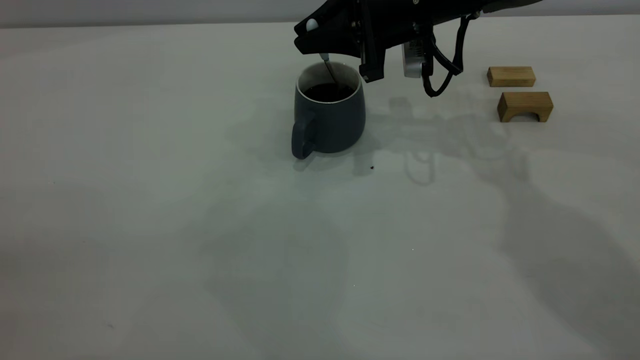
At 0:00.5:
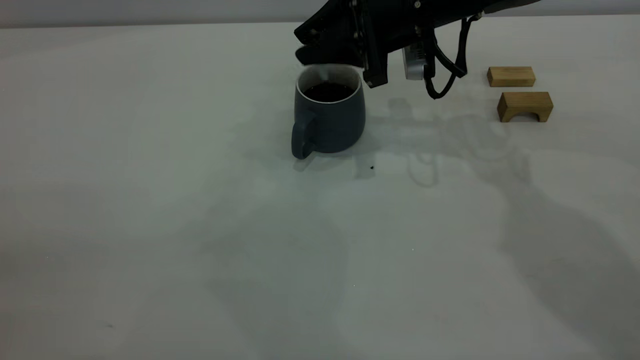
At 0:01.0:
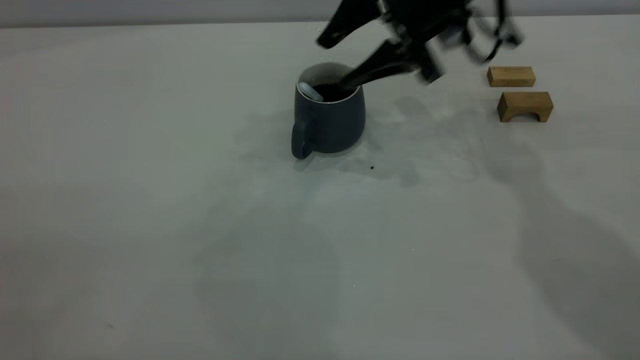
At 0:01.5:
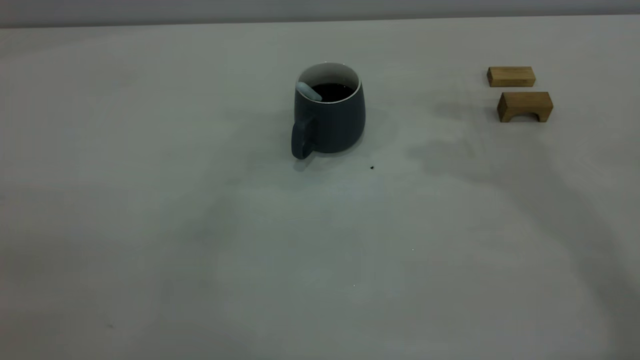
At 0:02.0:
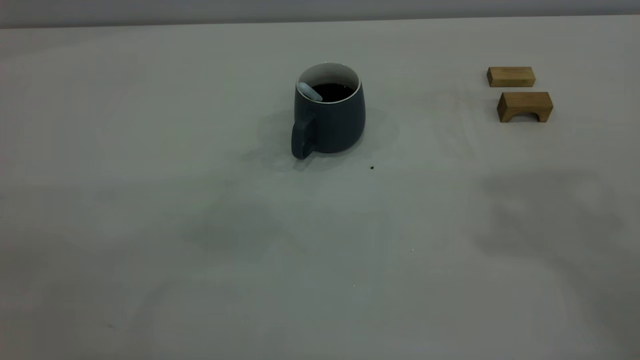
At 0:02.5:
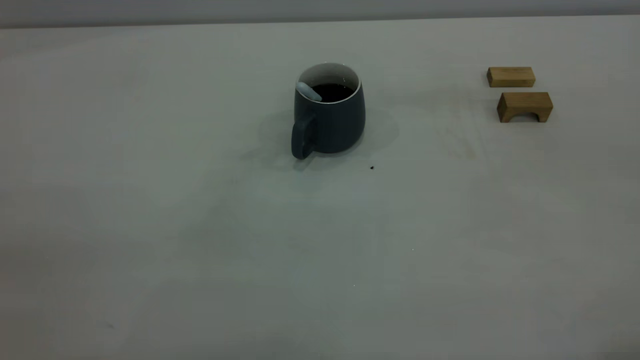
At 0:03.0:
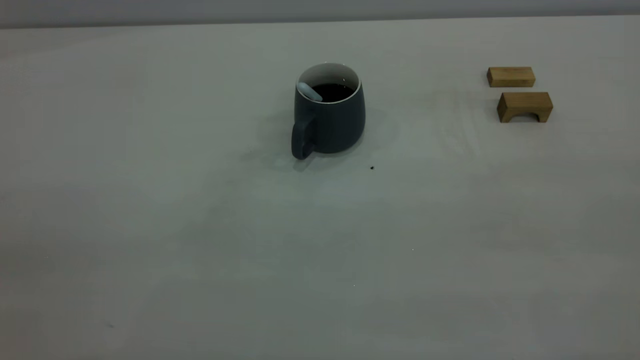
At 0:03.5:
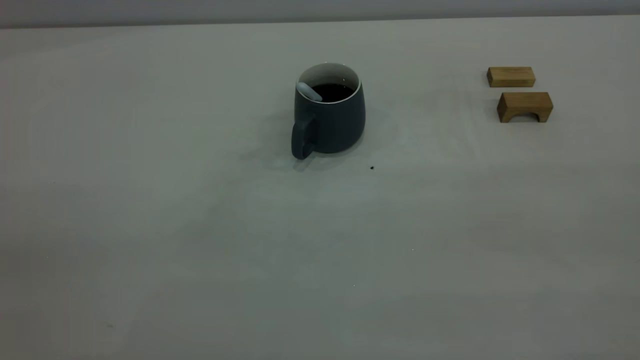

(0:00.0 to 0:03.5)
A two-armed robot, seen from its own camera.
0:00.0 - 0:02.0: The right gripper heads upward and backward, covering some 40 cm, and opens its fingers.
